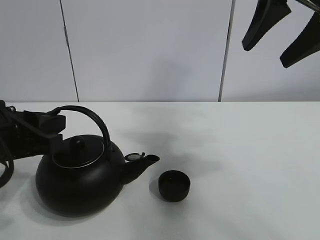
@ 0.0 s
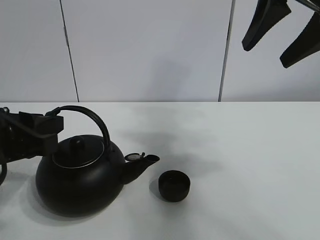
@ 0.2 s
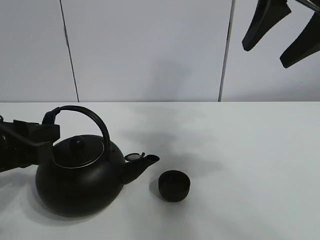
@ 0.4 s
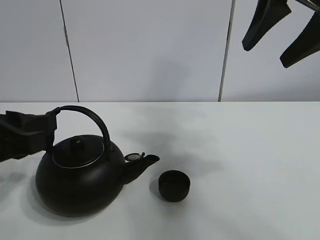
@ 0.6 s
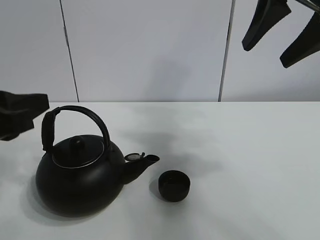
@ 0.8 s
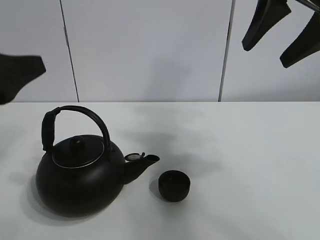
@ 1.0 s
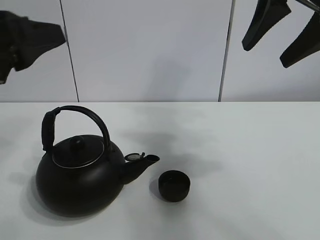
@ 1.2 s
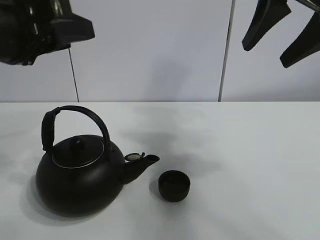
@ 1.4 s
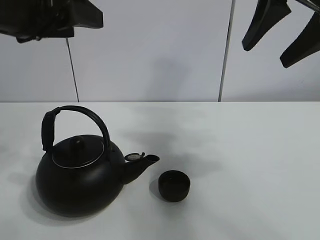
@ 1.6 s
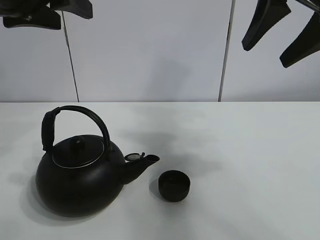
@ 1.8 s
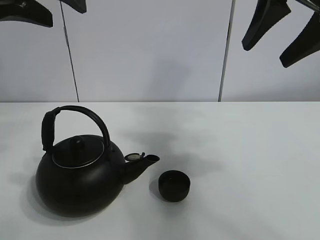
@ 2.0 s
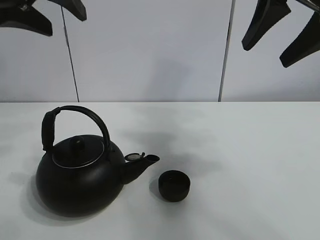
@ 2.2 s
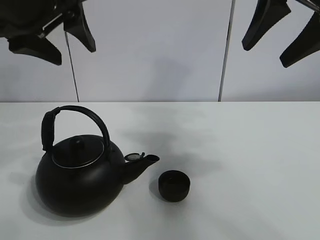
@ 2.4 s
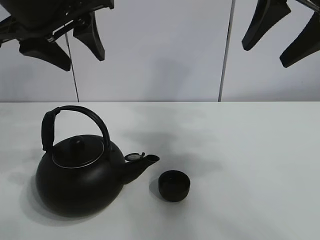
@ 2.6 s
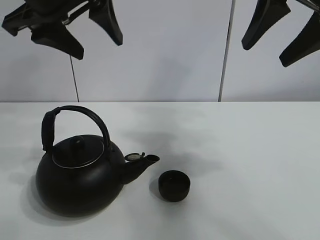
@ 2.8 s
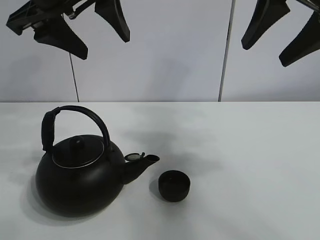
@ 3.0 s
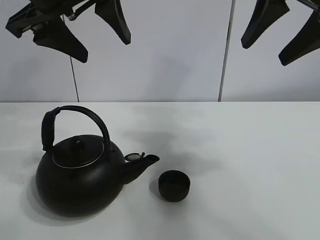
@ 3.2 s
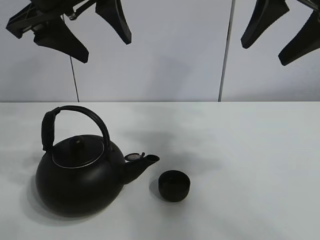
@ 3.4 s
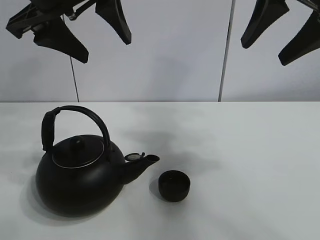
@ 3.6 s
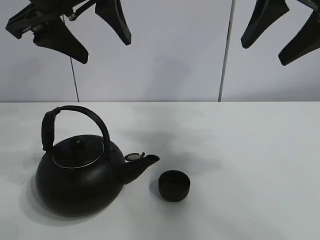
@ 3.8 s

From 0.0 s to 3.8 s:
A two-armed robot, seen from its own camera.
Task of the whole recording: pour tea into the teacup.
From 0.0 s to 1.2 s: The left gripper travels upward by roughly 10 cm.
From 1.2 s to 2.6 s: The left gripper goes roughly 15 cm forward, upward and to the right.
From 2.6 s to 3.8 s: The grippers stay close to where they were, moving slightly.
